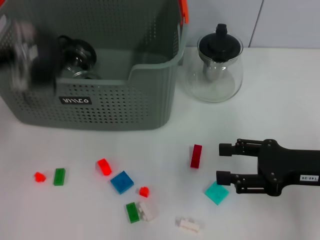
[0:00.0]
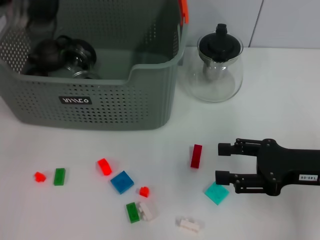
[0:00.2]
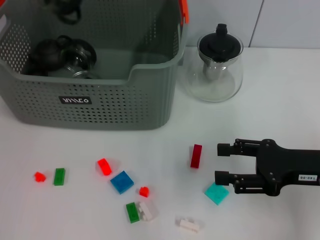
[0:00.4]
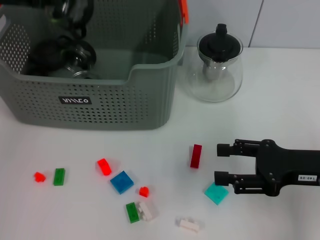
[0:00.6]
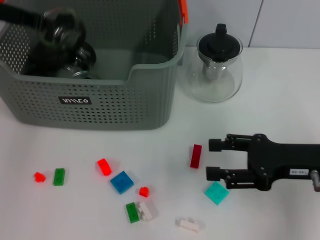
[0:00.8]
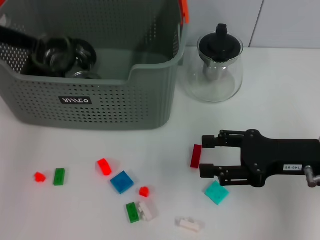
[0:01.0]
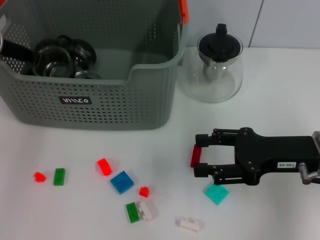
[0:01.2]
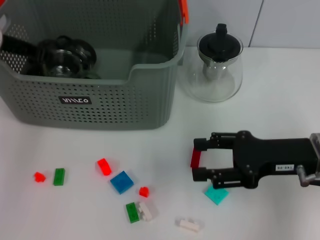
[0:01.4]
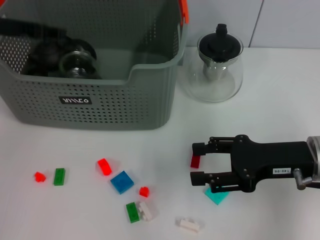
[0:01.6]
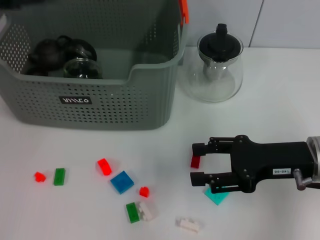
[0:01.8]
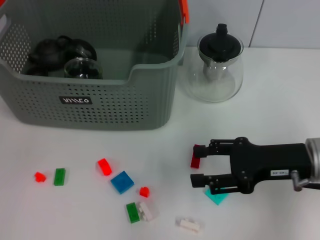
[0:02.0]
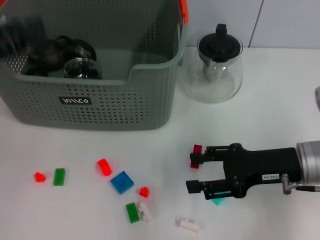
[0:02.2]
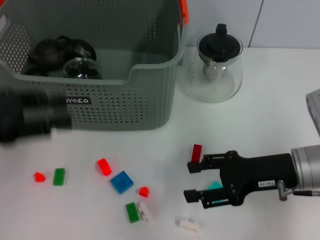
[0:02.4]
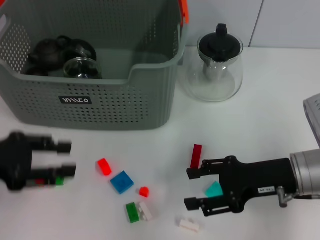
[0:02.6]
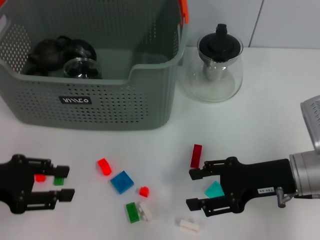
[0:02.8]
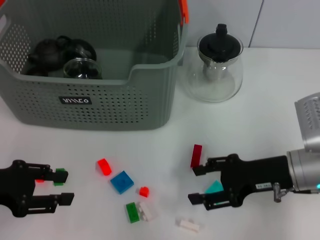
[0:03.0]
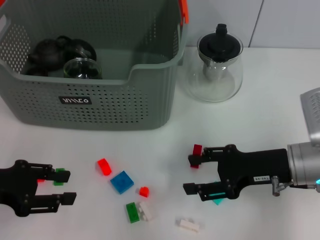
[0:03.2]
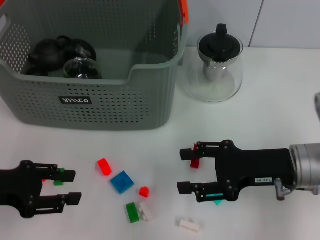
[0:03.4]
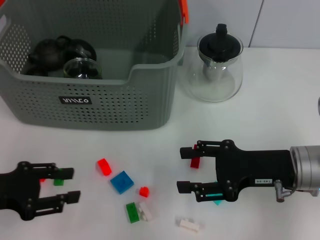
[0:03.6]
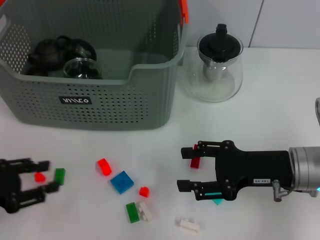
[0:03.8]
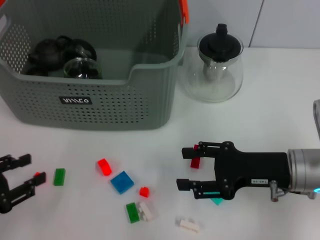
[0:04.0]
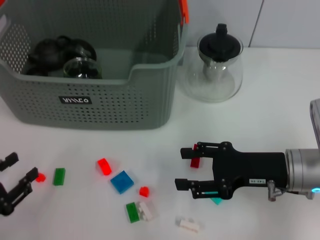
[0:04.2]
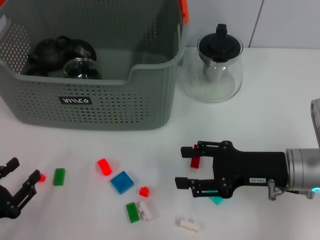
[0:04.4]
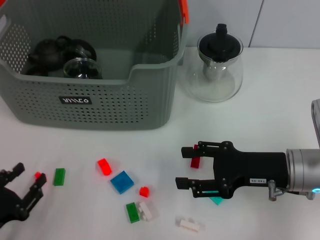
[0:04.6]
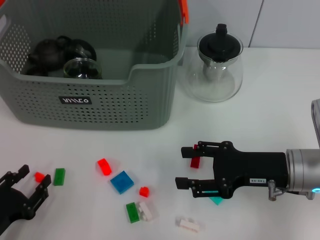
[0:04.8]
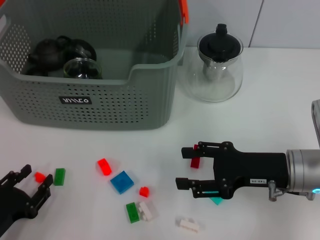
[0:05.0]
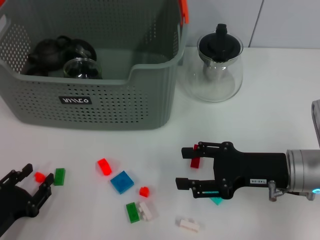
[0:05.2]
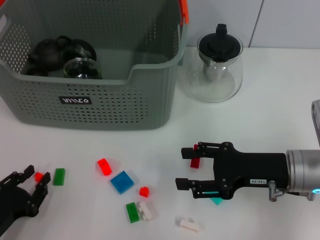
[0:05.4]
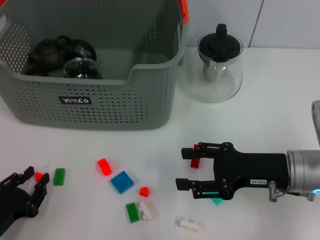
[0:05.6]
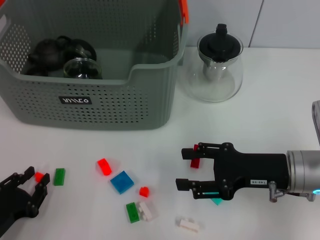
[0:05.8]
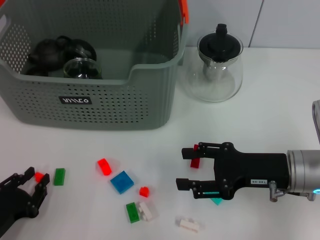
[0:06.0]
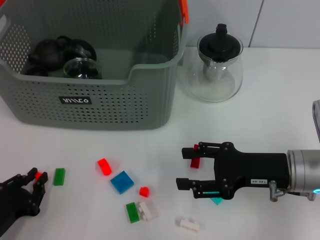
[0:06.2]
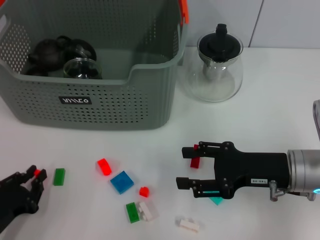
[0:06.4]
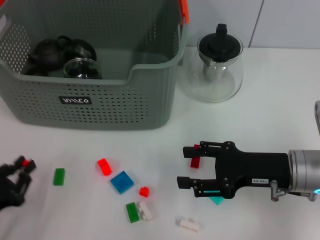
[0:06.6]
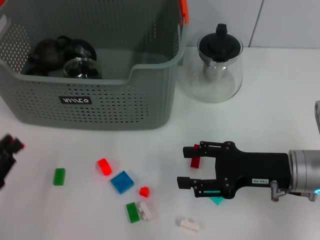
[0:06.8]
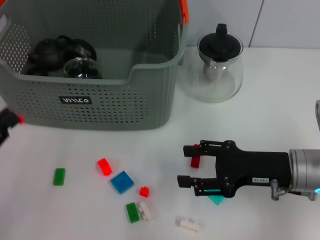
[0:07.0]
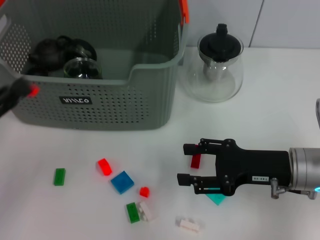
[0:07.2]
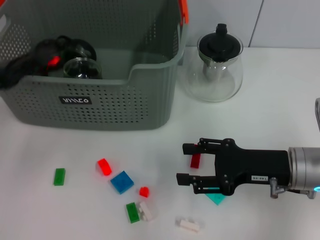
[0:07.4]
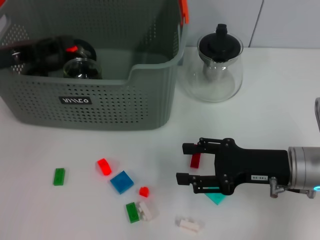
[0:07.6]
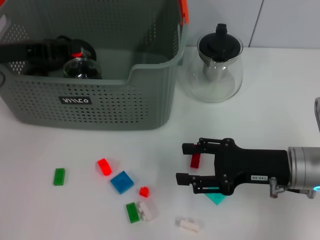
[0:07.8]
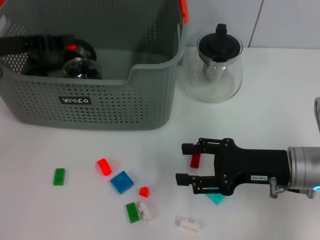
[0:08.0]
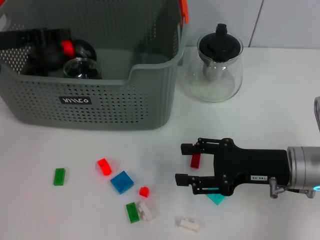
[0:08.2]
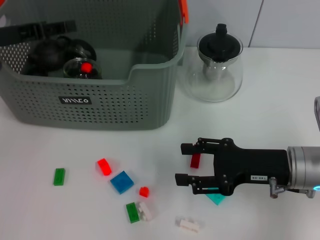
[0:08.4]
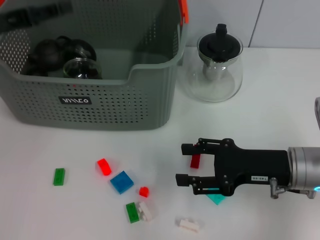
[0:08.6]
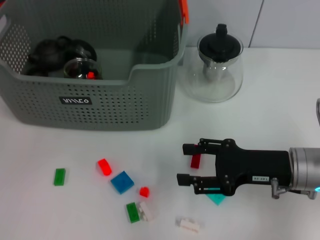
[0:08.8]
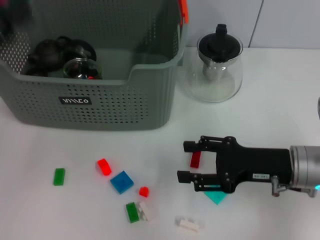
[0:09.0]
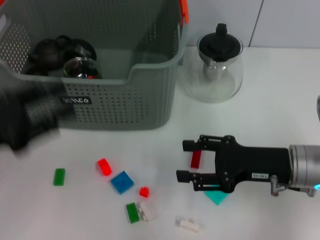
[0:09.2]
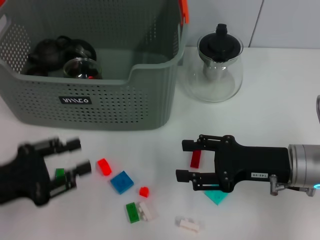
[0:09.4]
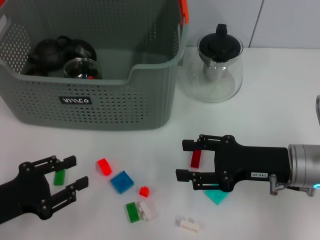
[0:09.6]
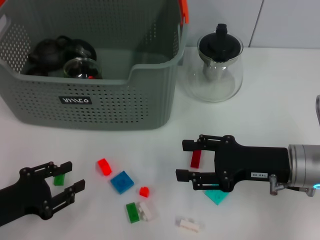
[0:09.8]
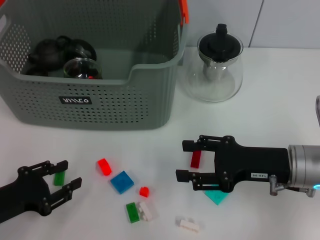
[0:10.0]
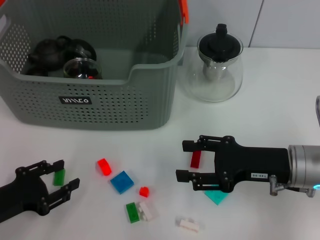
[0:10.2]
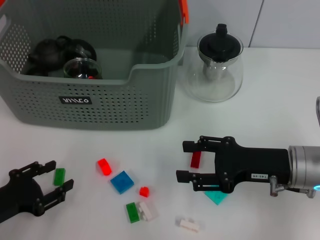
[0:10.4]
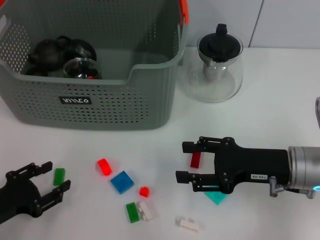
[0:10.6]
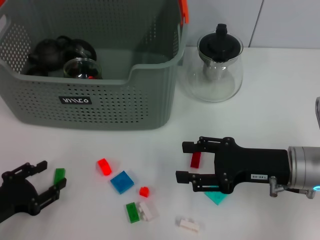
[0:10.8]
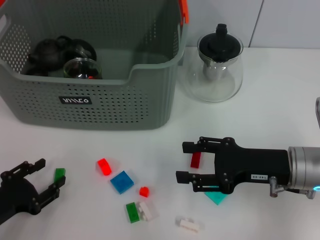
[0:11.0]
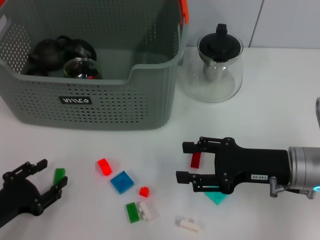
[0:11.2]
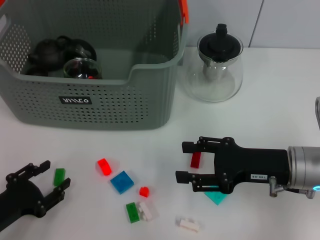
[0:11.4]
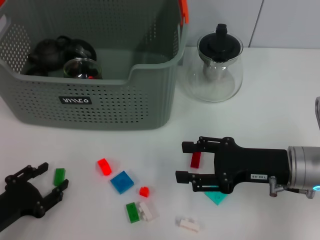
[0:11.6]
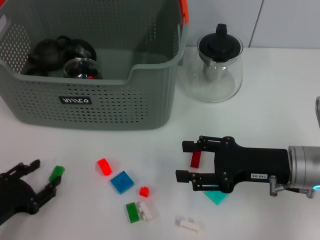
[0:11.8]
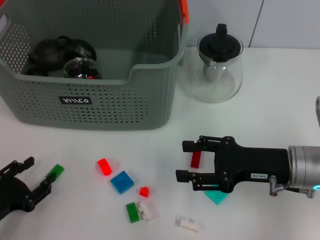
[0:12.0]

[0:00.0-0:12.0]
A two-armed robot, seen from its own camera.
Task of the whole recording: pick up the teacup on the table and place it into the storage bin, pick up the block on the table and place it into the storage bin.
Step, 0:00.0 to 0:01.6: Place the cup in the storage box with left gripper.
Step, 0:01.8 to 0:06.4: Grasp the orange block with left gripper.
Step, 0:06.6 to 0:08.2: Place the orange block in the storage box with left gripper.
0:00.0 to 0:01.6: The left gripper goes about 15 cm forward and to the right.
0:01.6 to 0:03.0: The left gripper is displaced backward and downward by some 20 cm, and opens.
0:03.0 to 0:04.4: The left gripper goes some 15 cm downward and backward.
0:04.4 to 0:06.0: There are only small adjustments of the grippers.
0:06.0 to 0:07.6: The left gripper moves forward and upward, some 25 cm.
0:07.6 to 0:09.0: The left gripper shifts some 10 cm backward, and opens.
0:09.0 to 0:10.4: The left gripper moves downward and backward, approximately 15 cm.
0:10.4 to 0:12.0: The grippers make only small movements.

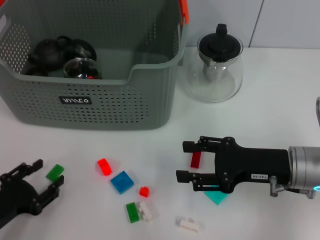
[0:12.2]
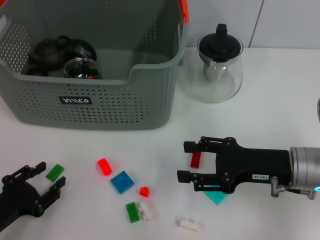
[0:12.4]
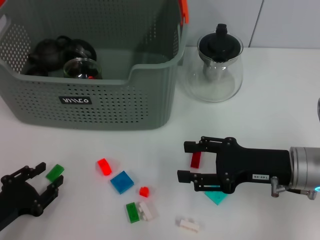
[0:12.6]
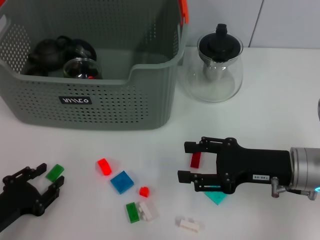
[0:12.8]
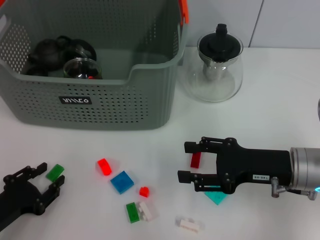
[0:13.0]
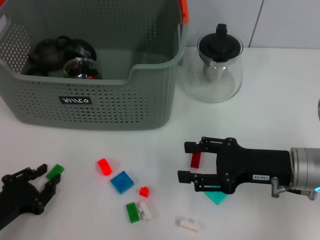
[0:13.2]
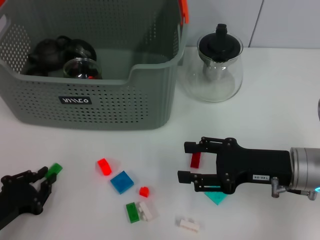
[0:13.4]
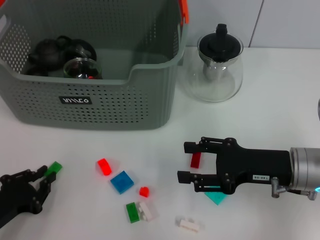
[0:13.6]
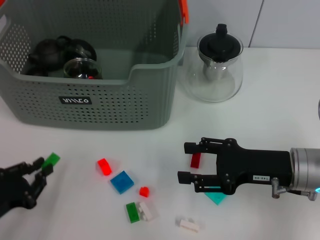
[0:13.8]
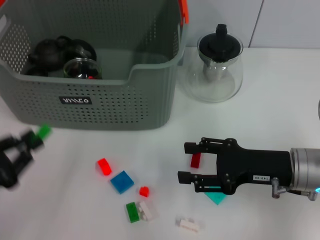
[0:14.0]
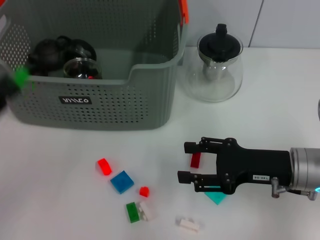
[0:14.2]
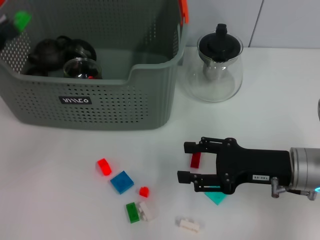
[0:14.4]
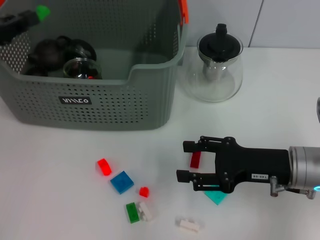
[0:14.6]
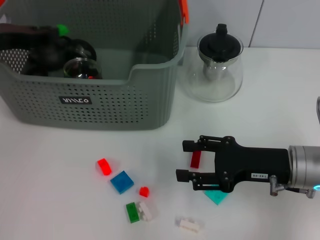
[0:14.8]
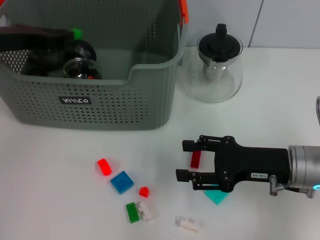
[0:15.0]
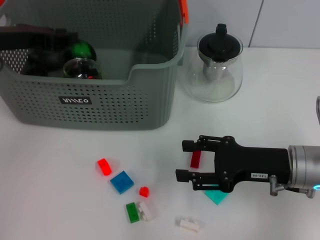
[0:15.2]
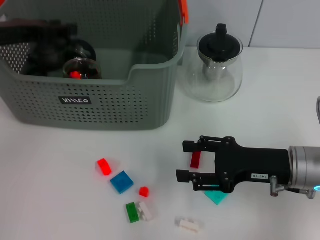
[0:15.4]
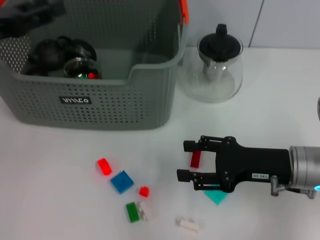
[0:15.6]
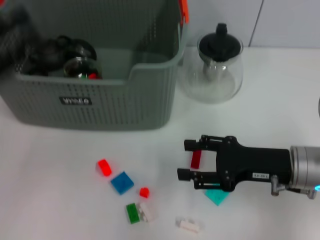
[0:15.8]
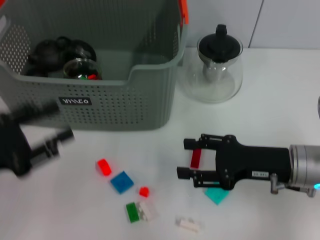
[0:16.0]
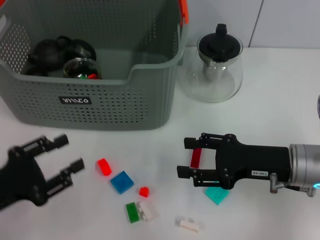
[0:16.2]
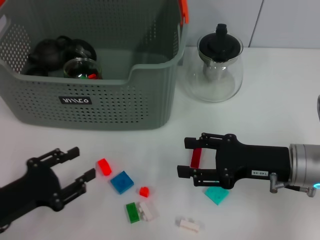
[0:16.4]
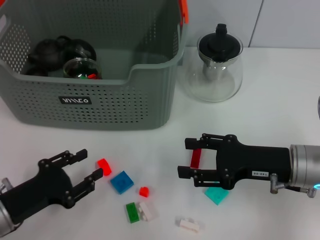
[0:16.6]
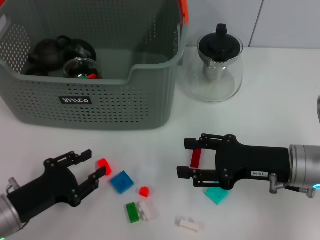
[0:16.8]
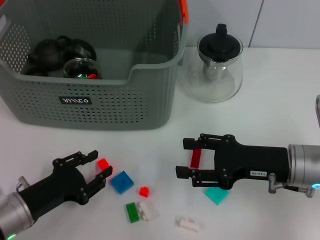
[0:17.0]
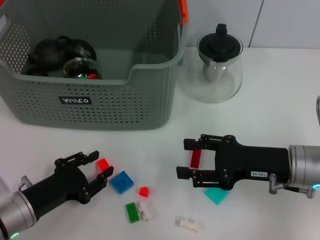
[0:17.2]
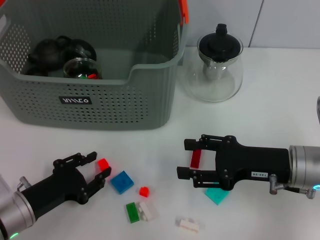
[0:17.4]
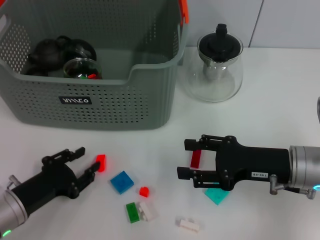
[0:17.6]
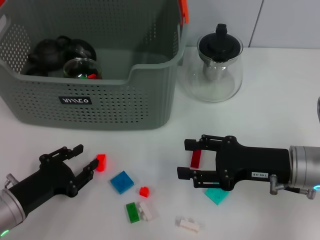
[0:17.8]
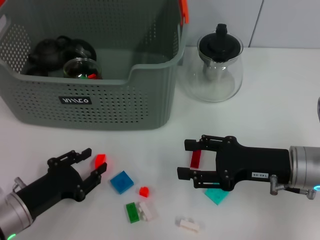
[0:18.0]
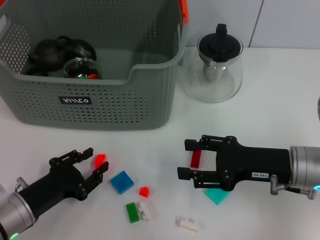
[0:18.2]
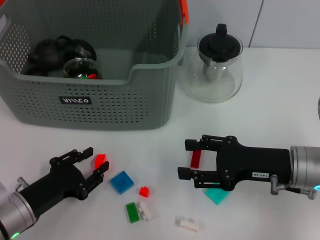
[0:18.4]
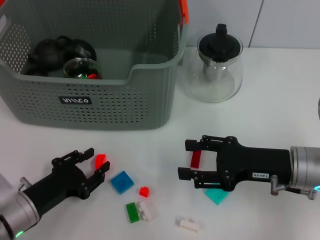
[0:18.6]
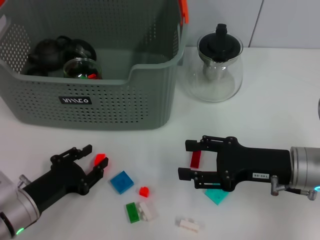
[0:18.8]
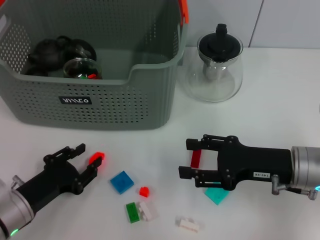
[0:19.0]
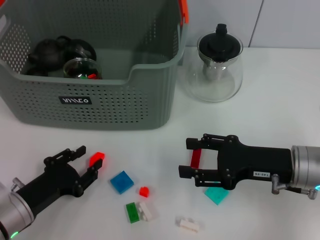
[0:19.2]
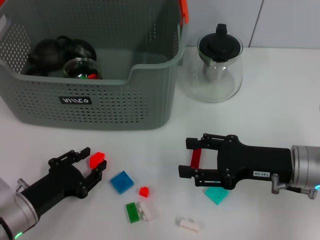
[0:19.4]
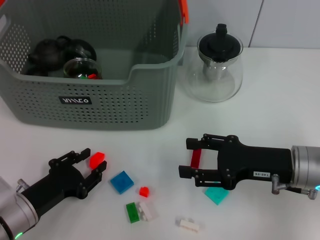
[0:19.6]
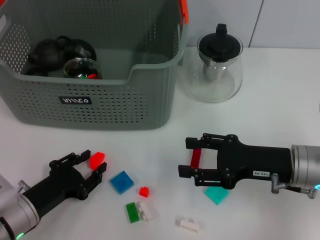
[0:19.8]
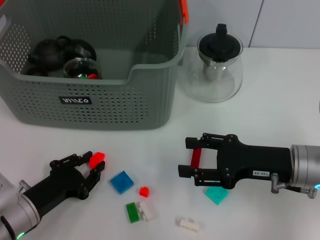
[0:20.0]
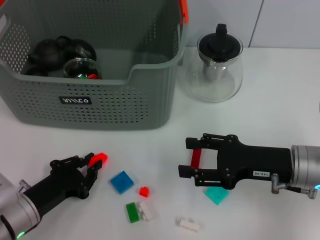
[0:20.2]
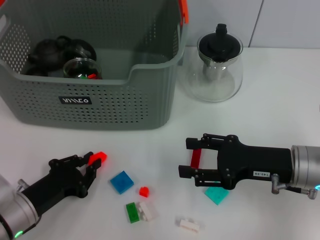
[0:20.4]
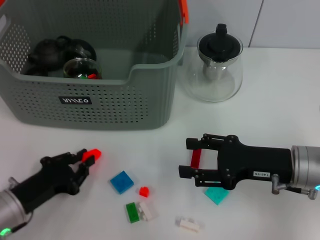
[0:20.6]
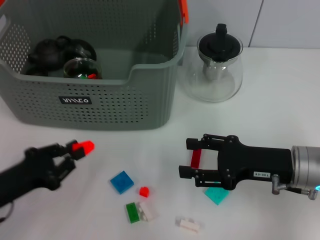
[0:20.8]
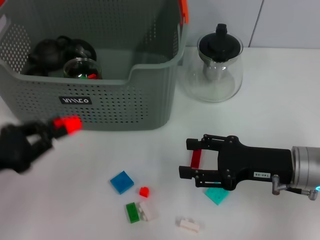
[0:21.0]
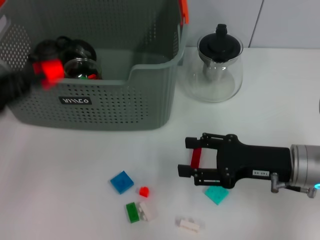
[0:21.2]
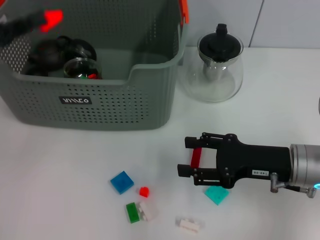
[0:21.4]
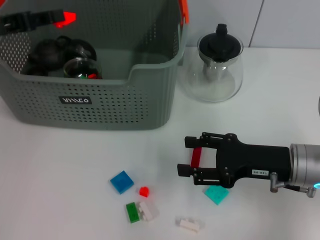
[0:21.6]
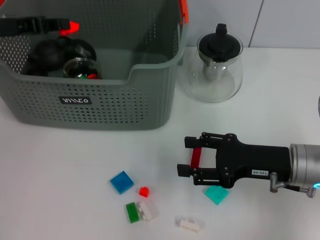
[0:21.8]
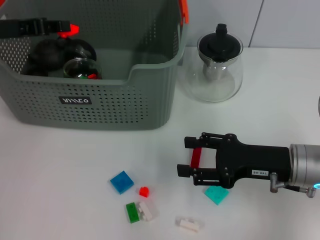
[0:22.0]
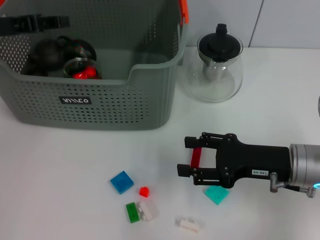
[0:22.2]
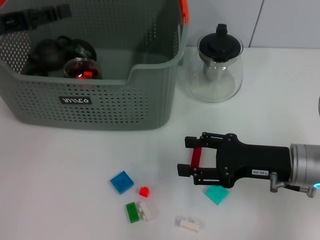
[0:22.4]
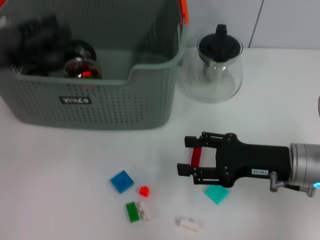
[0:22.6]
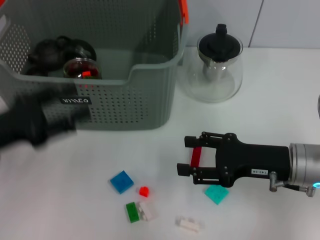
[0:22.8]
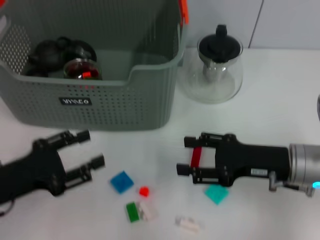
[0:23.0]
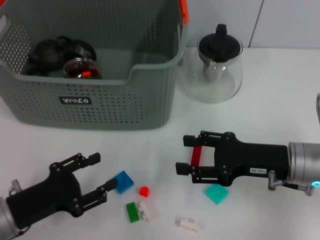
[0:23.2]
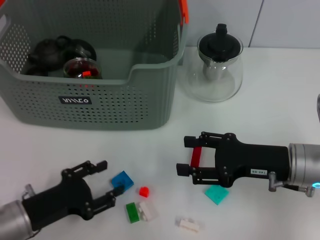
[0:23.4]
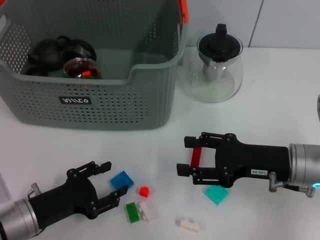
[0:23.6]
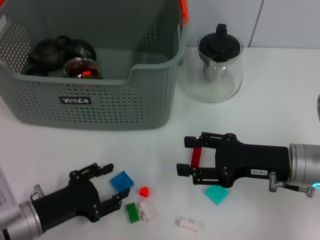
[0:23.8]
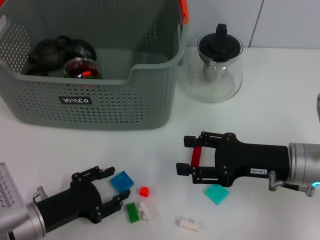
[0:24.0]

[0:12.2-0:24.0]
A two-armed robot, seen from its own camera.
Task of the whole recording: pick up the teacup on the table and place it into the storage bin, pick up the block on the table and place it into the storage bin.
Step, 0:13.8 to 0:15.2: Place the green block in the storage box with left gripper.
Step, 0:15.6 to 0:20.2: Grasp the orange block with left gripper.
Step, 0:20.6 to 0:22.2: Place the orange block in the storage box with left gripper.
0:12.2 to 0:13.6: The left gripper closes up.
0:13.6 to 0:15.2: The left gripper shifts about 30 cm forward and upward.
0:15.2 to 0:16.6: The left gripper travels backward and downward by about 25 cm.
0:16.6 to 0:18.2: The grippers make only small movements.
0:18.2 to 0:19.6: Both grippers stay about where they are.
0:19.6 to 0:21.0: The left gripper heads upward and to the left, covering approximately 10 cm, and closes up.
0:21.0 to 0:22.6: The left gripper travels upward and forward by roughly 15 cm, and opens up.
0:22.6 to 0:24.0: The left gripper is displaced downward, backward and to the right by approximately 20 cm.
